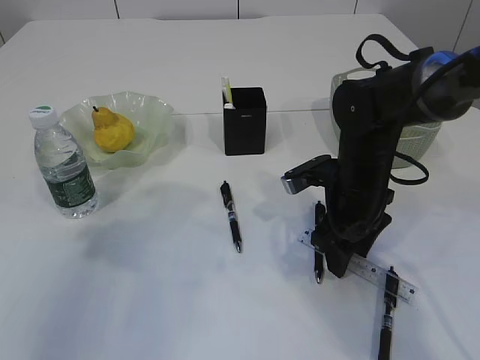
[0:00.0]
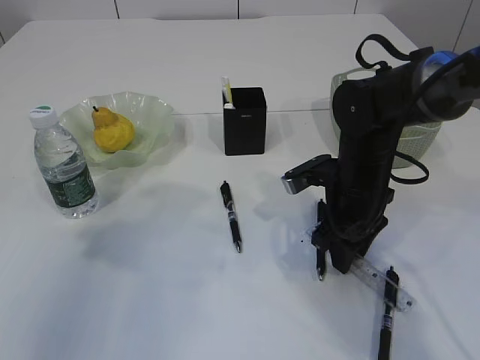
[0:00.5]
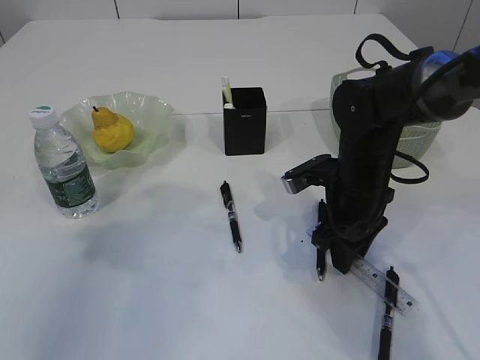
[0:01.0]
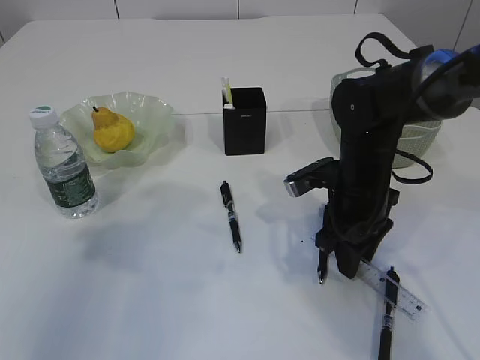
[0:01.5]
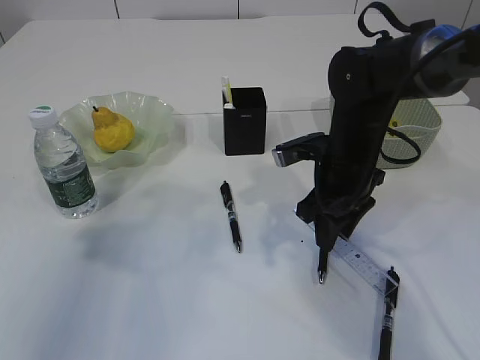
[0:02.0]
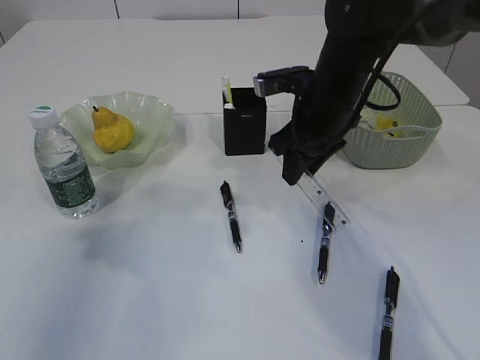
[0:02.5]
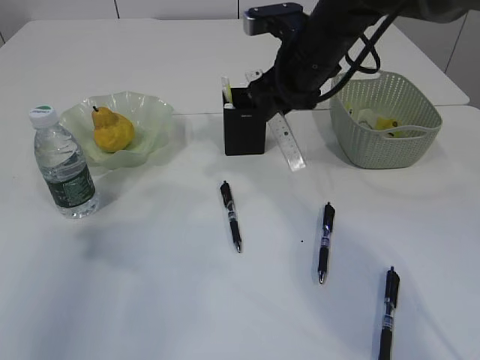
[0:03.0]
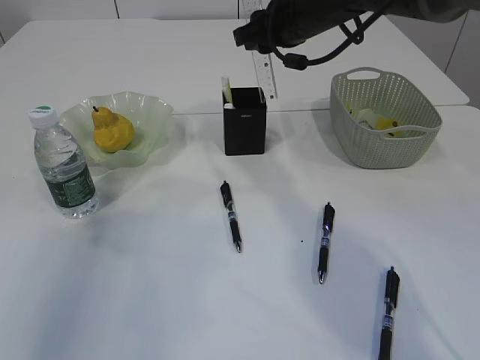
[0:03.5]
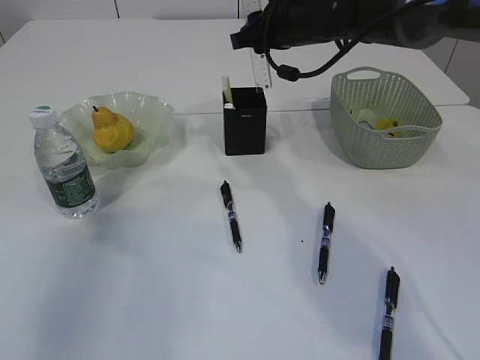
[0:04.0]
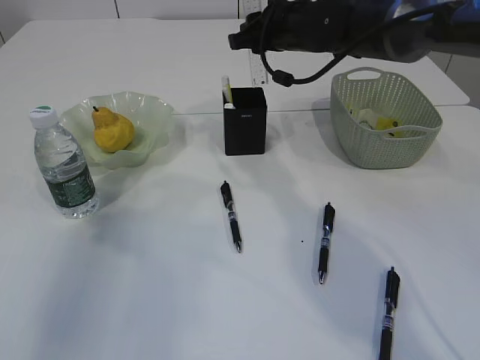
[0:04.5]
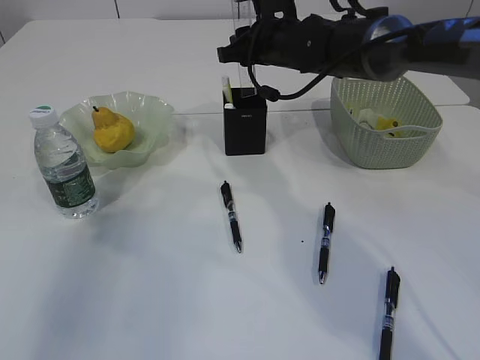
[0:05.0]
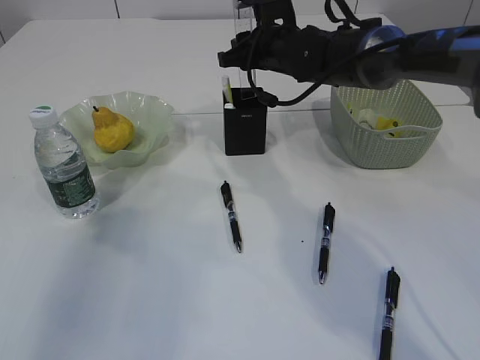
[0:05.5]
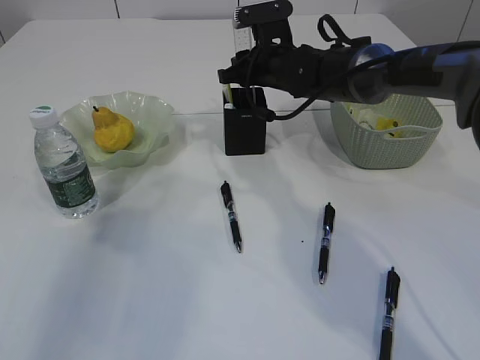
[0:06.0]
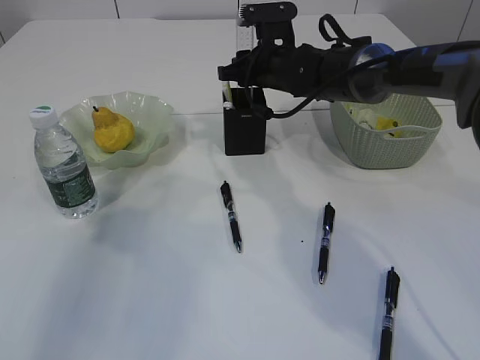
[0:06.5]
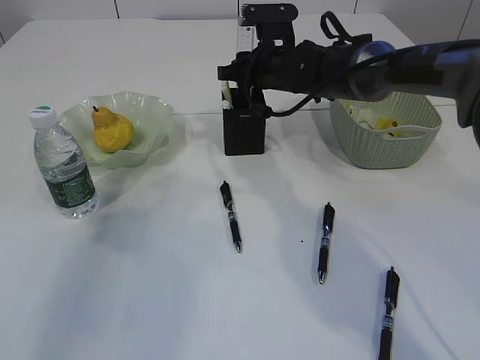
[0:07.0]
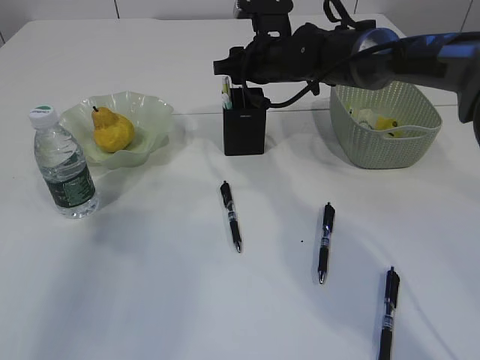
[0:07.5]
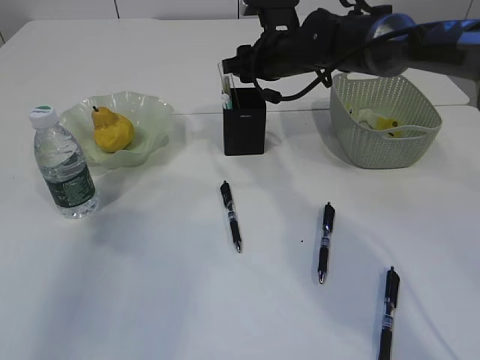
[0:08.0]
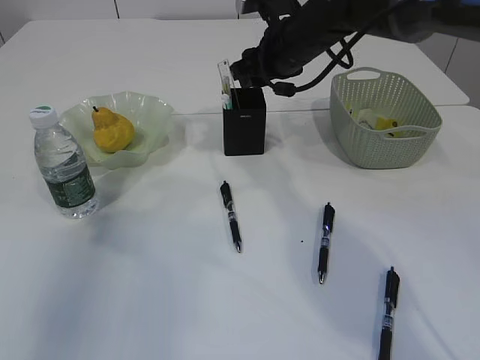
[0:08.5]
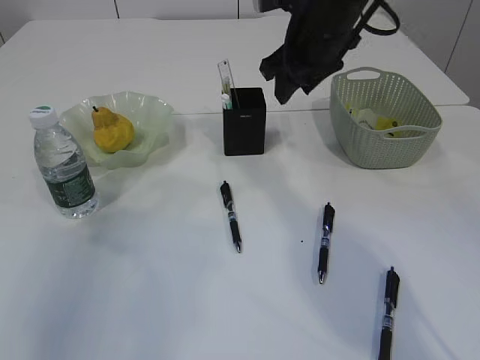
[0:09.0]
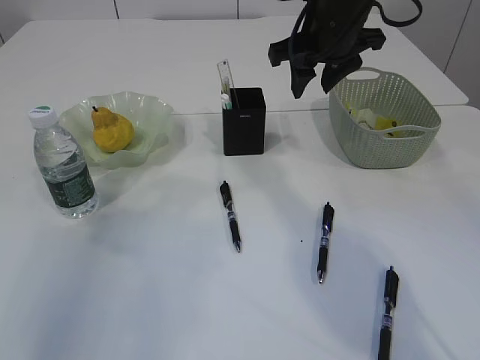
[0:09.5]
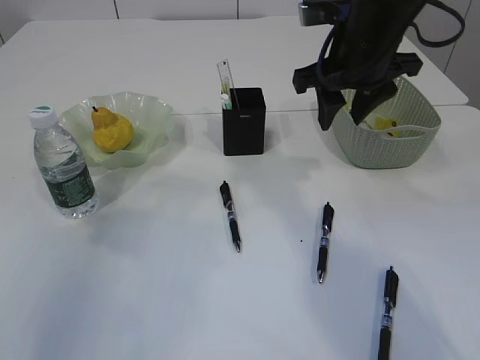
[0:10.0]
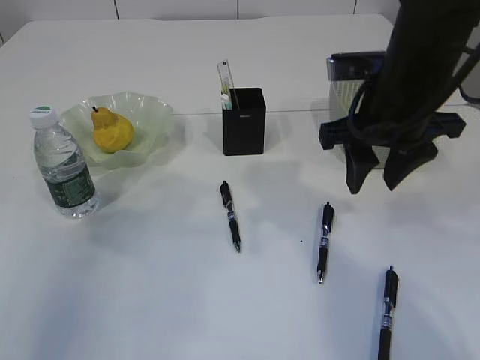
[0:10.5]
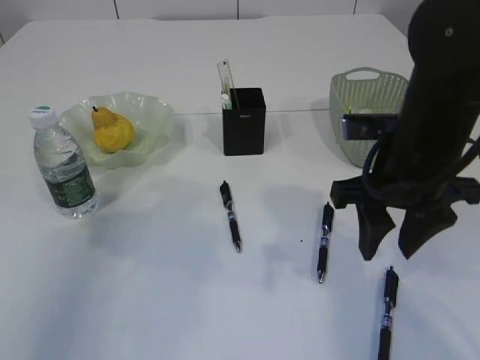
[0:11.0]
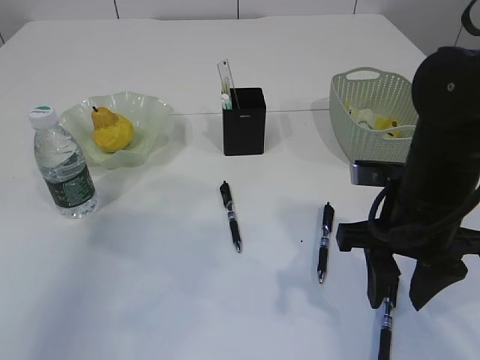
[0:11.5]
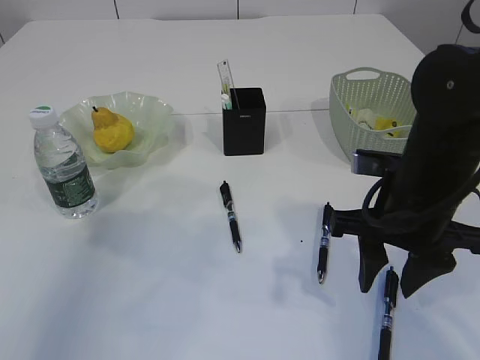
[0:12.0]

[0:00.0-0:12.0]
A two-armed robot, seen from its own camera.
Step, 0:02.0 to 0:08.0: Place the ruler into the pen holder.
0:00.0 to 0:02.0: The right gripper closes up.
0:02.0 to 0:04.0: The right gripper heads forward and upward, covering roughly 15 cm.
0:04.0 to 0:06.0: The right gripper shifts some 5 cm downward.
0:06.0 to 0:08.0: The grippers move only a little.
0:08.0 to 0:10.0: The right gripper goes about 15 cm backward, upward and to the right.
0:10.0 to 0:12.0: The right gripper moves backward and downward, approximately 15 cm.

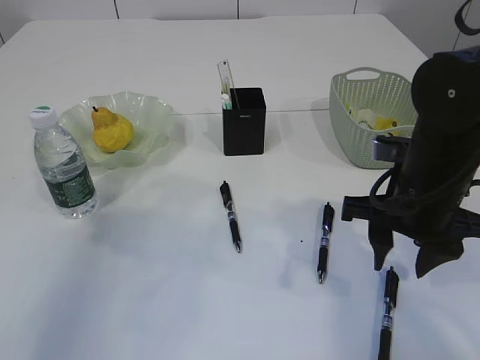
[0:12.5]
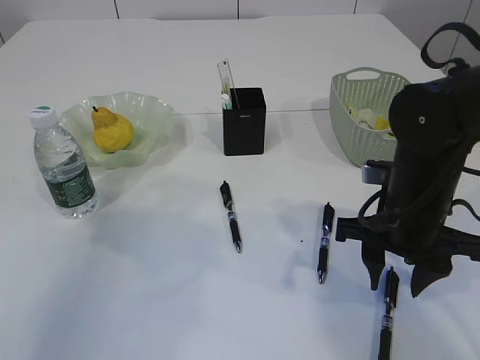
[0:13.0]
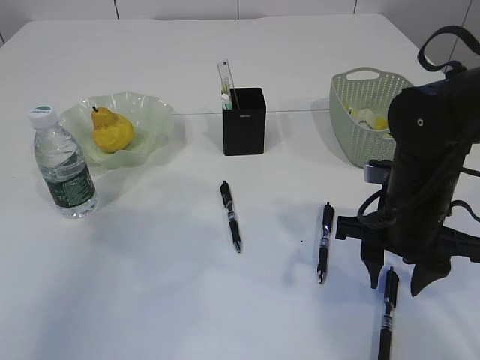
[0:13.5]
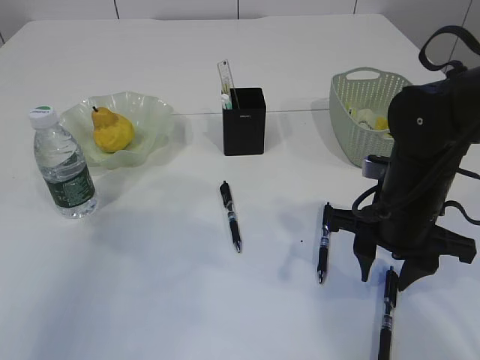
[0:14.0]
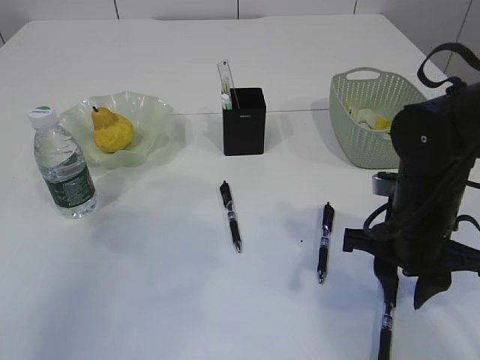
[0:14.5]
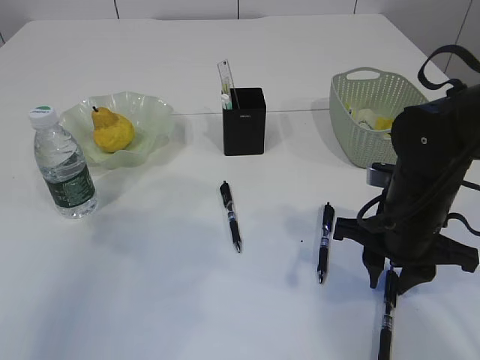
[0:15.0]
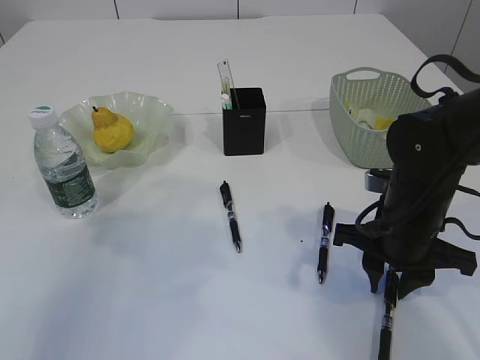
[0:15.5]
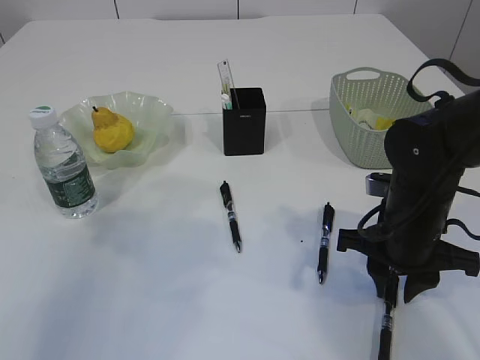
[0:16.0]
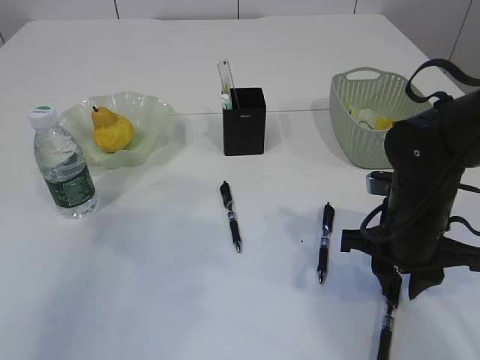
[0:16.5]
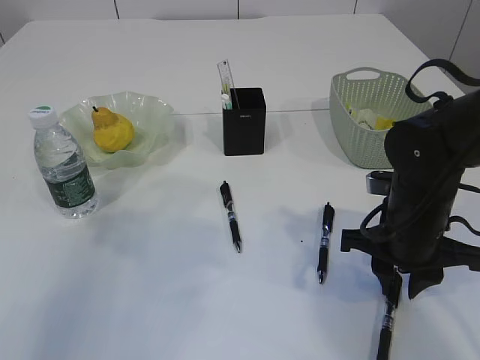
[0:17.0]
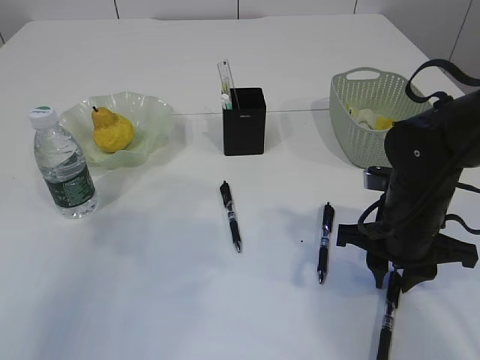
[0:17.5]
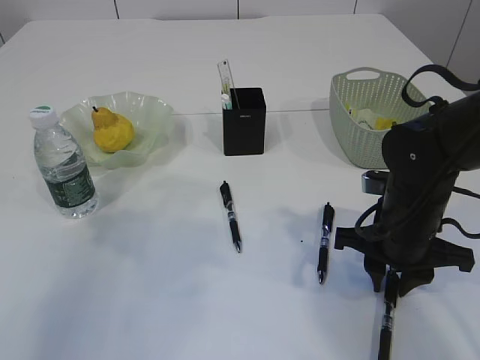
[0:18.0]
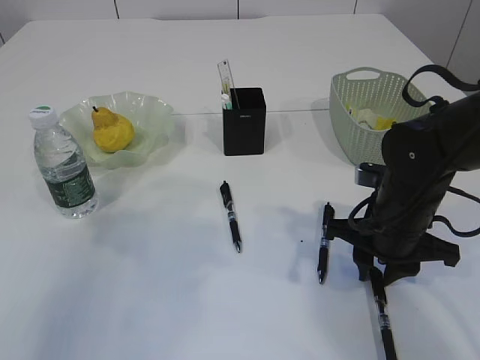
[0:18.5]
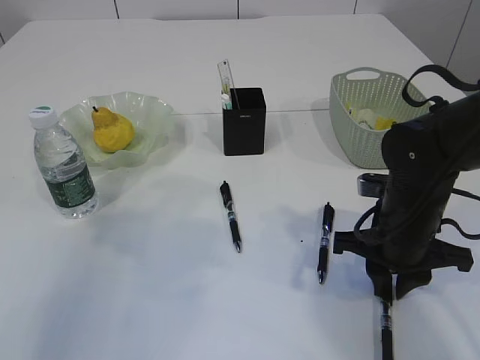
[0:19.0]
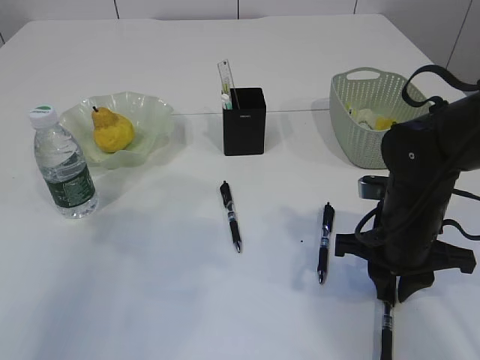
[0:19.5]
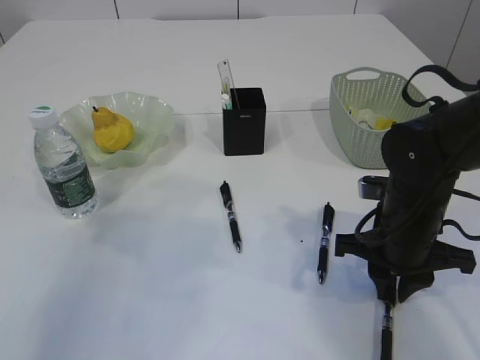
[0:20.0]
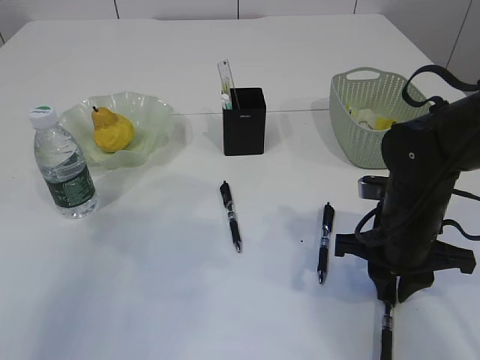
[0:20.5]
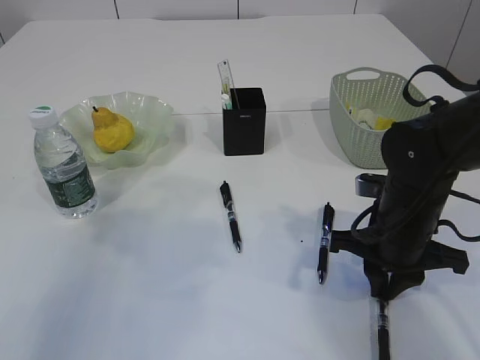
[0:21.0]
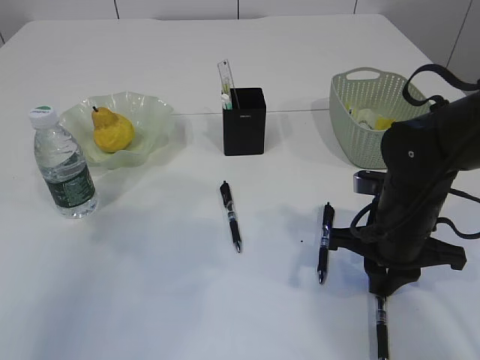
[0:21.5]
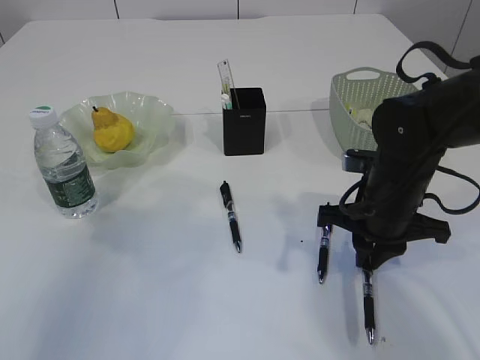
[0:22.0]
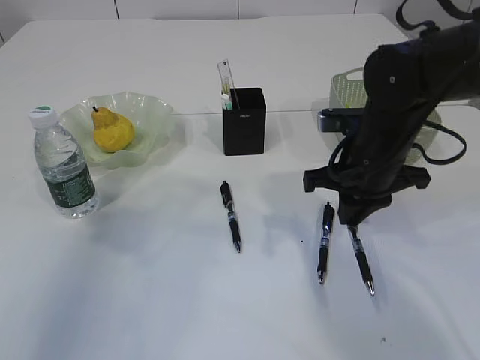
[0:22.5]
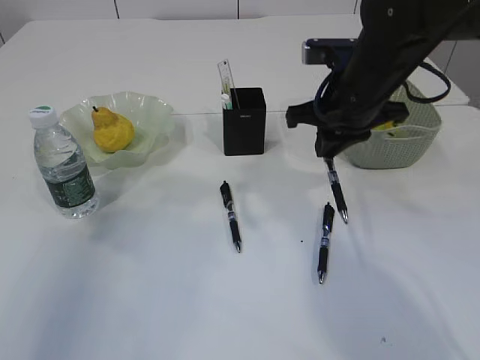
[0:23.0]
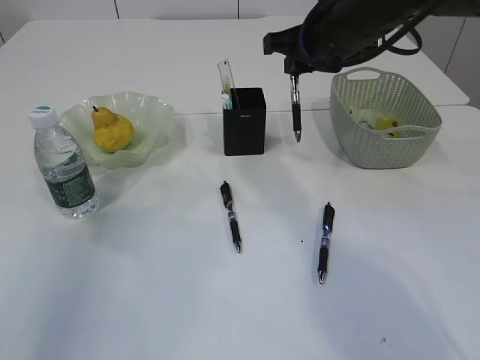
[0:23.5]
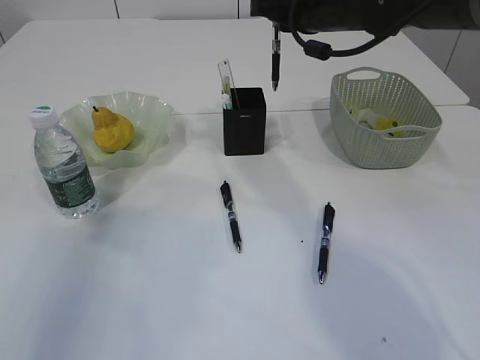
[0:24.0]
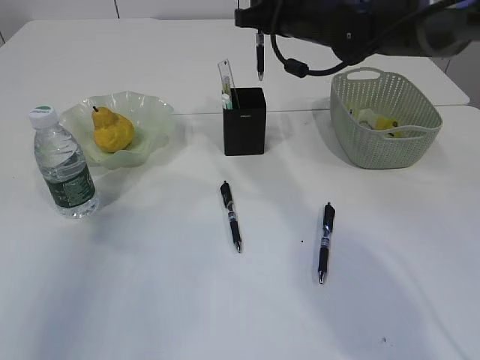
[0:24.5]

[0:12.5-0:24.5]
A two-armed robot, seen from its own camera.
Step, 0:12.5 to 0:22.0: Pick up the pen with right arm.
0:12.5 to 0:16.5: The grippers make only small movements.
0:16.5 to 0:20.5: The grippers stay close to where they were, moving slightly.
0:20.5 to 0:22.5: The right gripper shifts some 10 cm forward and upward.
0:22.5 to 0:24.5: The right gripper heads forward and upward, covering some 15 cm.

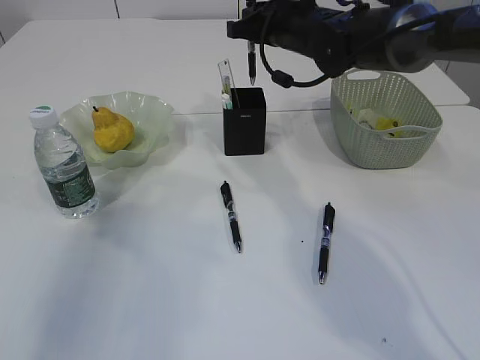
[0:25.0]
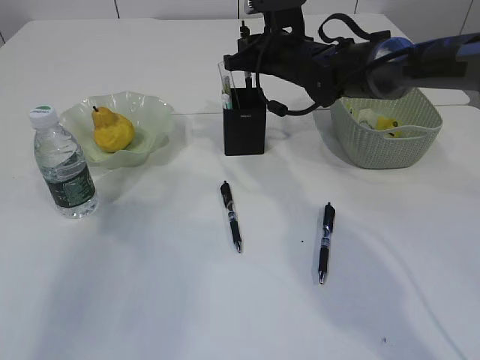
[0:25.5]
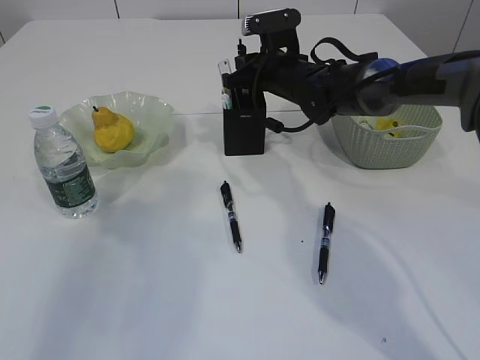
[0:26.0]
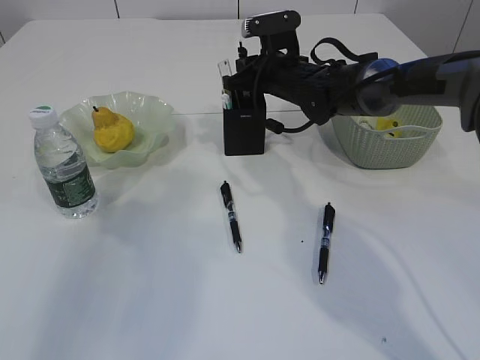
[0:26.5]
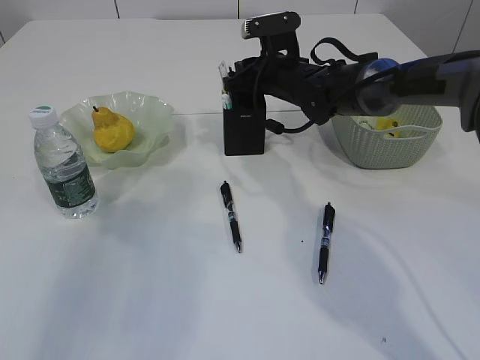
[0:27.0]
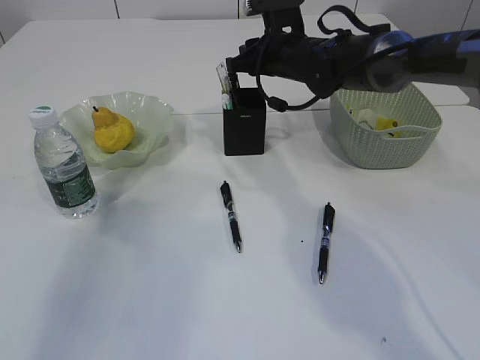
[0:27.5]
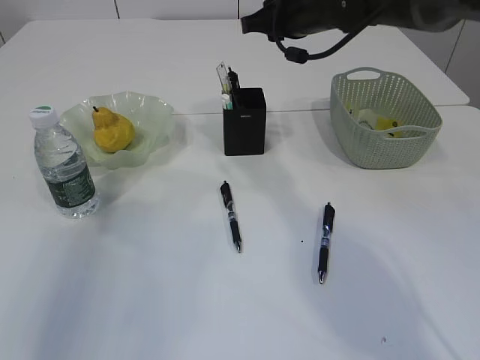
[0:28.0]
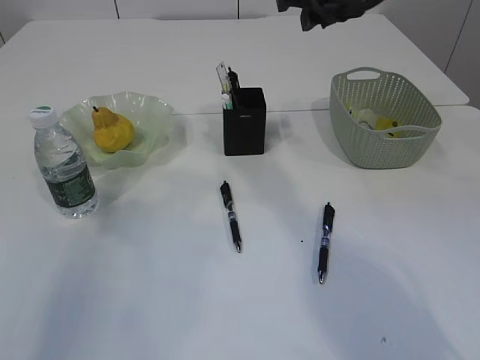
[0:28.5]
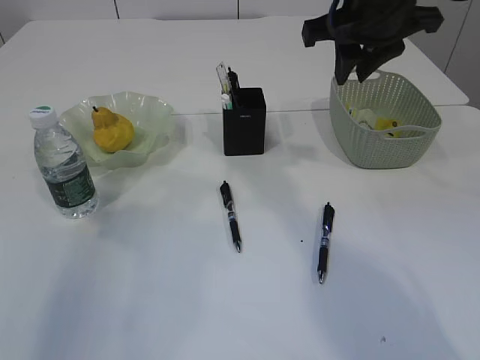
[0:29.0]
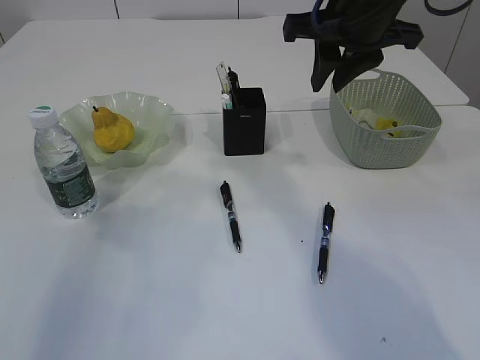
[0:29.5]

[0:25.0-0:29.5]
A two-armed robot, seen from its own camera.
Step, 0:25.0 to 0:27.5: Place the pen into the pen holder.
0:25.0 to 0:27.0: The right gripper goes about 10 cm downward.
0:27.0 to 0:29.5: The right gripper heads upward and backward, covering roughly 20 cm.
